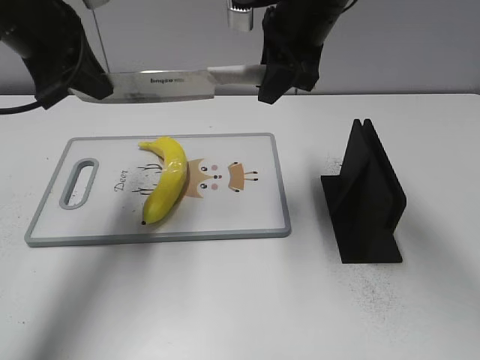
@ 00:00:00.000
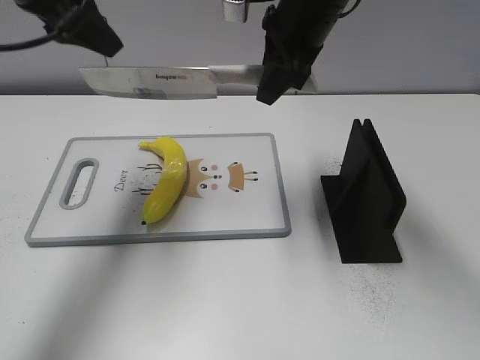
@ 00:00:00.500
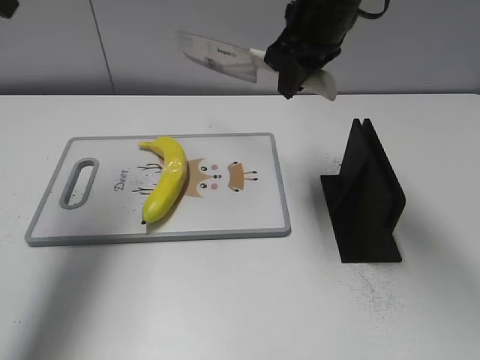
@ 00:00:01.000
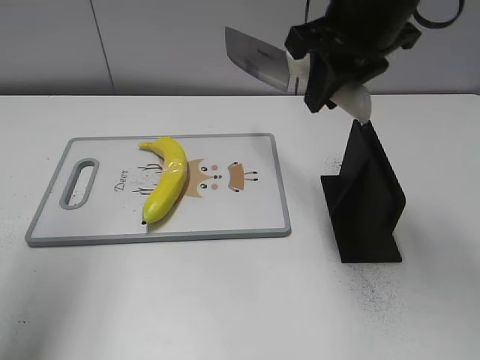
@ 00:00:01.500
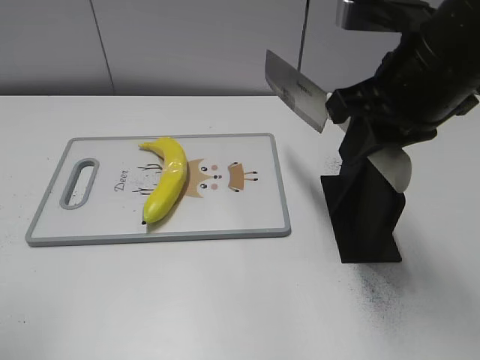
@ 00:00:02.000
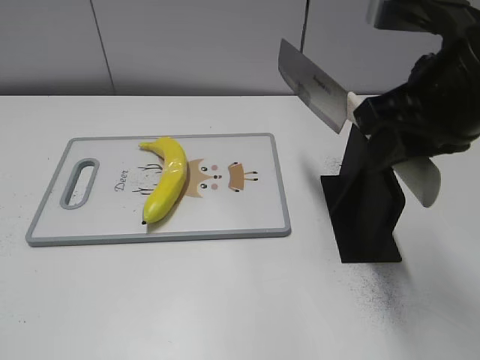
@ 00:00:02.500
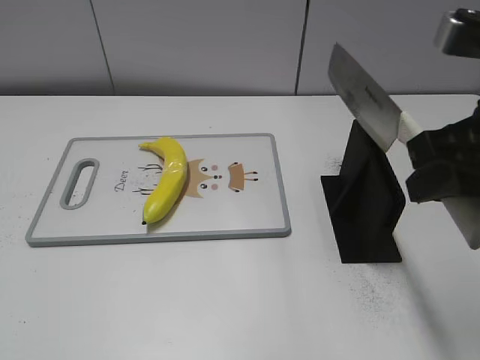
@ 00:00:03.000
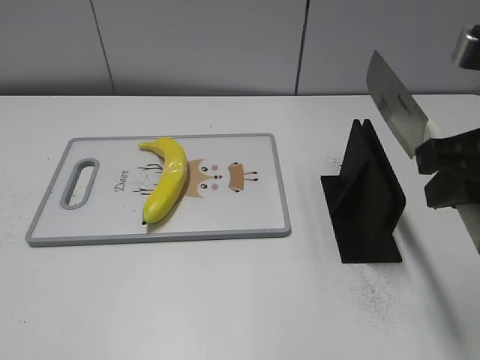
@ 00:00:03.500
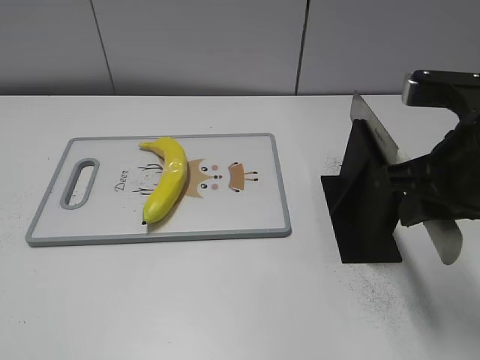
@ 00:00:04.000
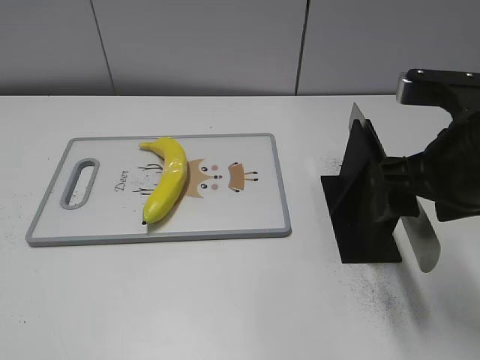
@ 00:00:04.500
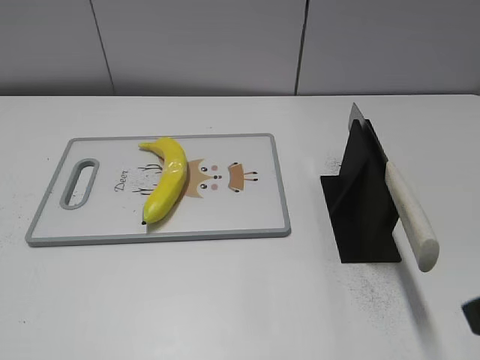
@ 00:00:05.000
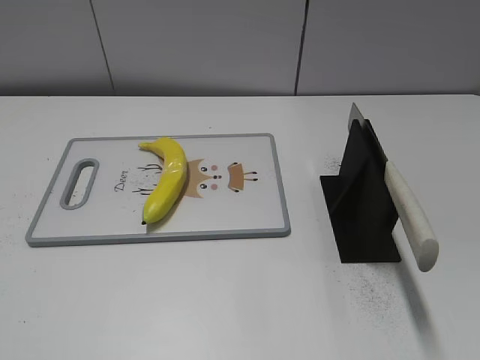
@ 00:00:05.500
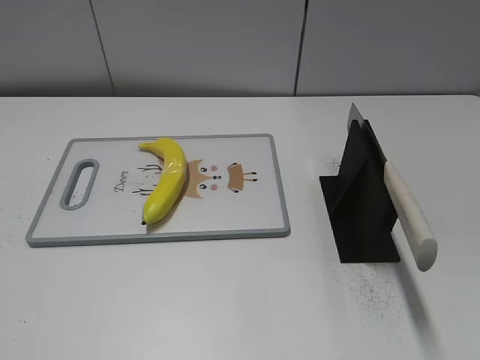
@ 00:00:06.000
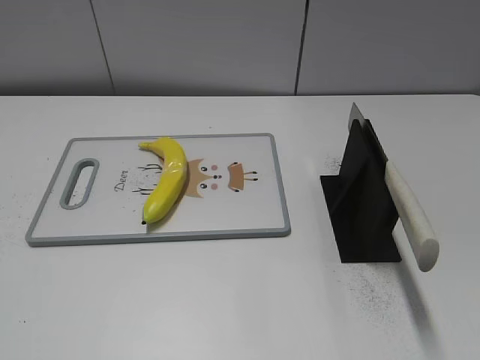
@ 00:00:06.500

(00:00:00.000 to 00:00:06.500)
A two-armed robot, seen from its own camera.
Task of the whole recording: cut plastic banana.
Step, 00:00:00.500 - 00:00:01.000: Cut the banana with your right hand.
Step, 00:00:01.500 - 00:00:02.500: Secure the blade with your left hand.
Step, 00:00:03.000 - 00:00:06.500: Place the knife on the storage rack with your right hand.
00:00:00.000 - 00:00:02.000: The right gripper moves backward and to the right, some 15 cm. The left gripper is displaced backward and to the left by roughly 25 cm, and opens up.
00:00:02.000 - 00:00:04.500: The right gripper heads downward, covering roughly 5 cm, and opens. Meanwhile the left gripper moves backward and downward, roughly 15 cm.
00:00:04.500 - 00:00:06.500: The right gripper shifts roughly 25 cm backward and to the right.
